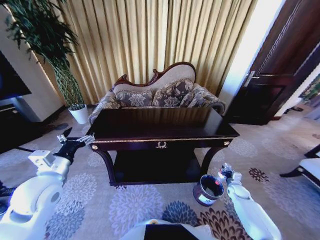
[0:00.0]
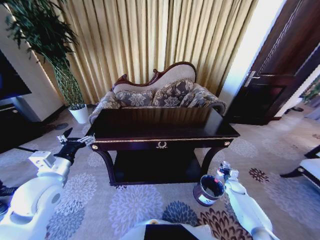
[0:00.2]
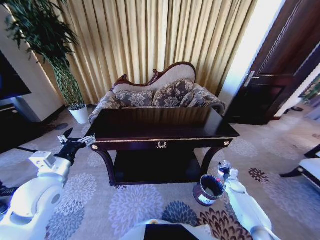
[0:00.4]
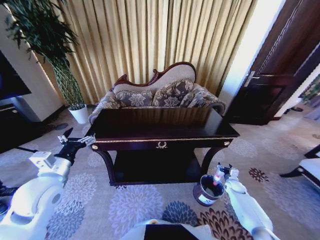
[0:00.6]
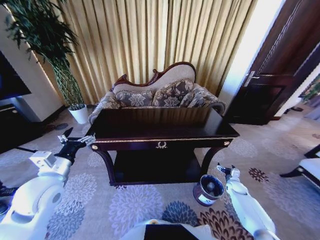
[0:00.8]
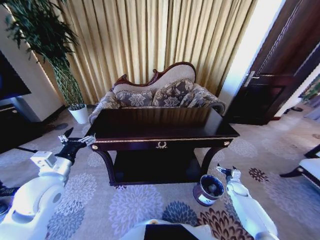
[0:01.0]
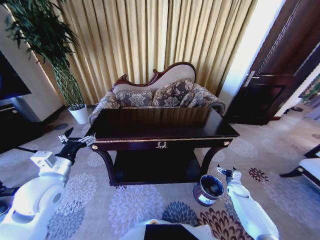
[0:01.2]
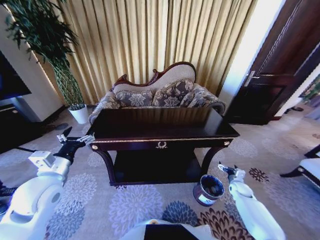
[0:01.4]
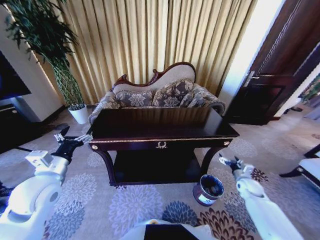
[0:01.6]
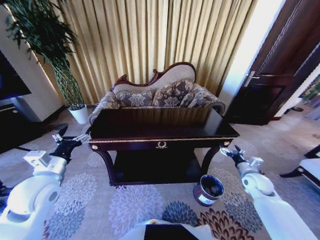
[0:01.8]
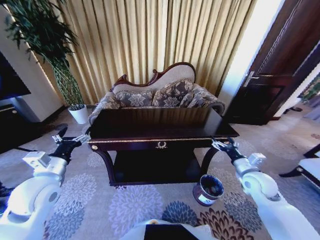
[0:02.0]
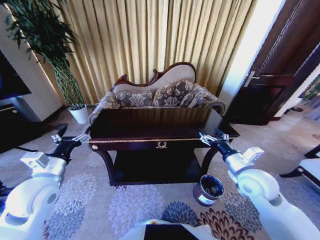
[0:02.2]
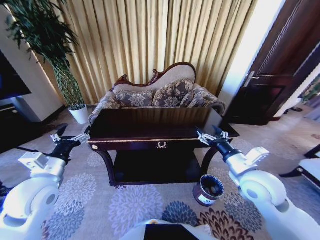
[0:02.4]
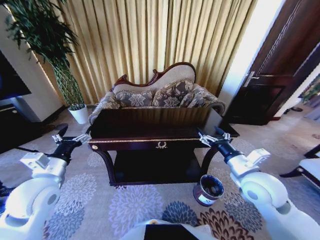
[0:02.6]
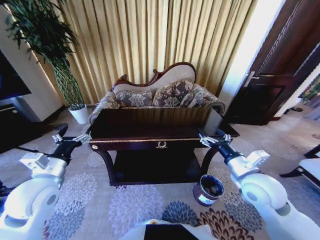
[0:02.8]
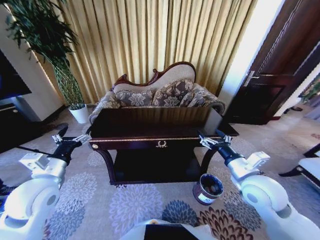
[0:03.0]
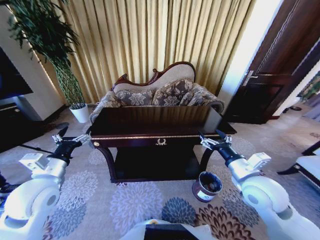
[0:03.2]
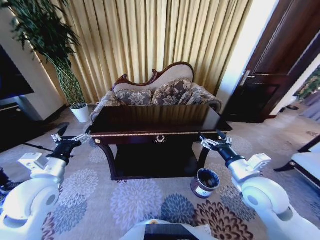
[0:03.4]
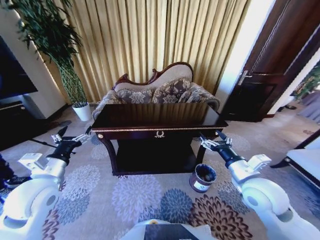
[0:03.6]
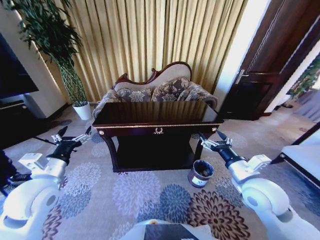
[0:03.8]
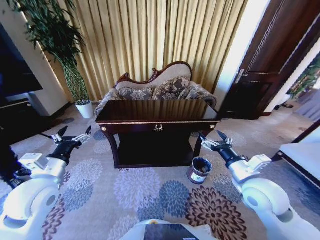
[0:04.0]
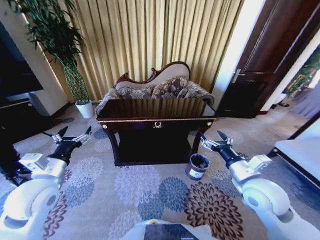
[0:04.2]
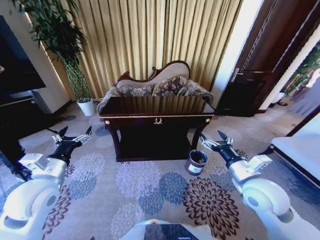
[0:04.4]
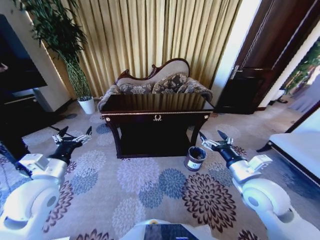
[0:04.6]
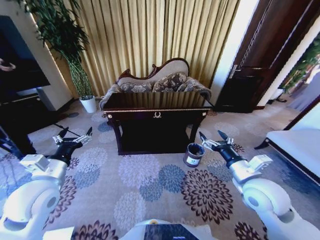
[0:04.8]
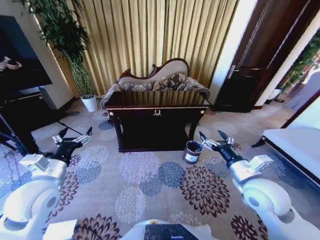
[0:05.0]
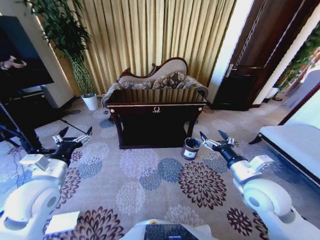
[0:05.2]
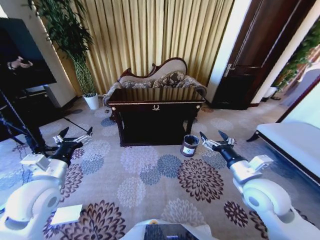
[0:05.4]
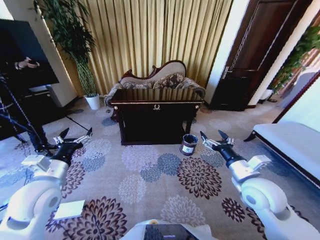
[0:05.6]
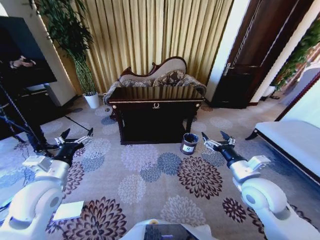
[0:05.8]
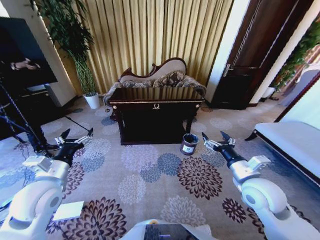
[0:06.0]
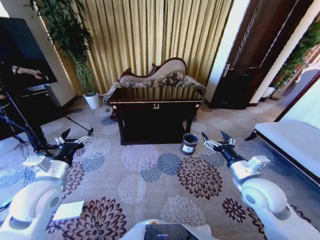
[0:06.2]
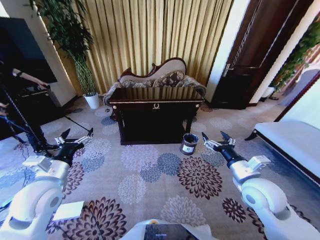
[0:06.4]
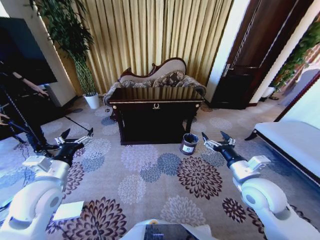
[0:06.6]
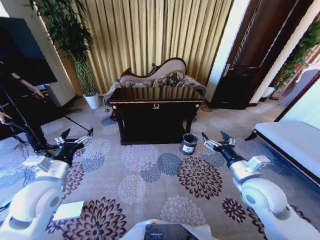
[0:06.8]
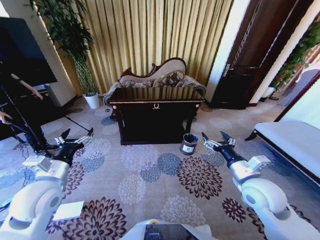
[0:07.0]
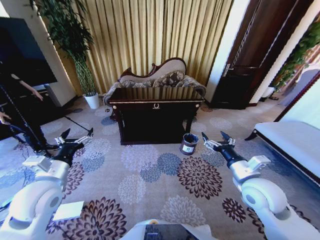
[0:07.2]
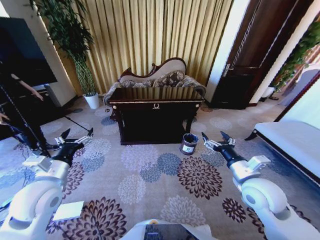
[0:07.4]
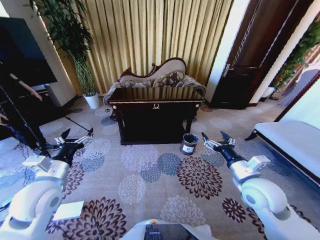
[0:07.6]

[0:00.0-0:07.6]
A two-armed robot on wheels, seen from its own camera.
Task of the whole recording: Move to the front of the table and place the trash on the table into the trash bin.
0:00.0 to 0:01.6: The right gripper shifts roughly 10 cm upward, and opens.
0:01.6 to 0:03.0: The right gripper shifts about 30 cm upward and to the left.
0:06.0 to 0:07.6: Both grippers stay about where they are.
